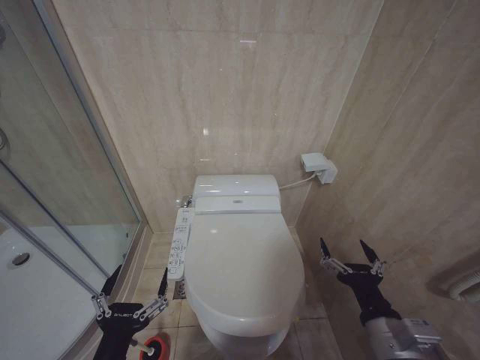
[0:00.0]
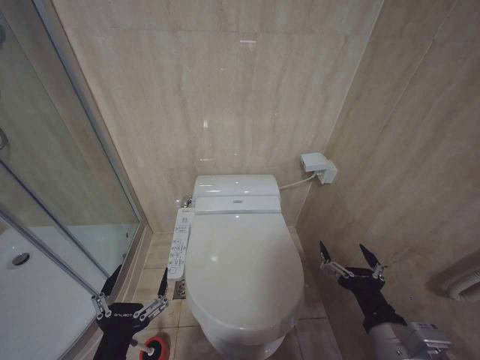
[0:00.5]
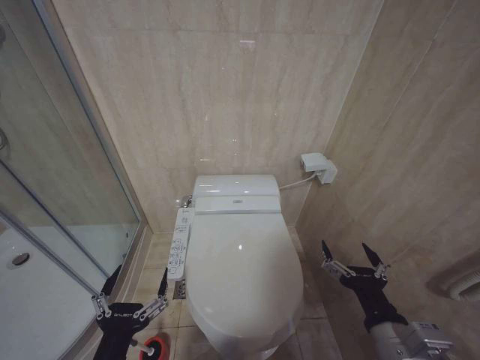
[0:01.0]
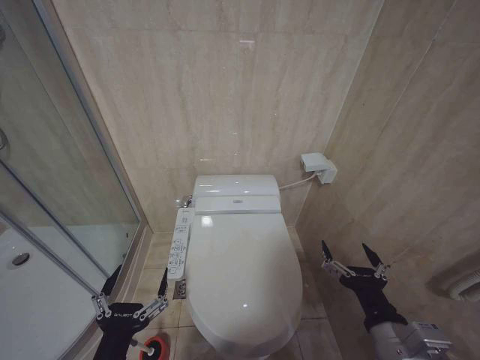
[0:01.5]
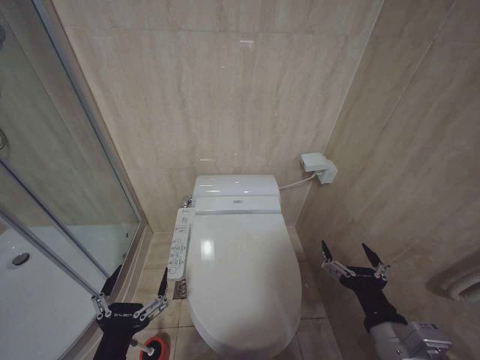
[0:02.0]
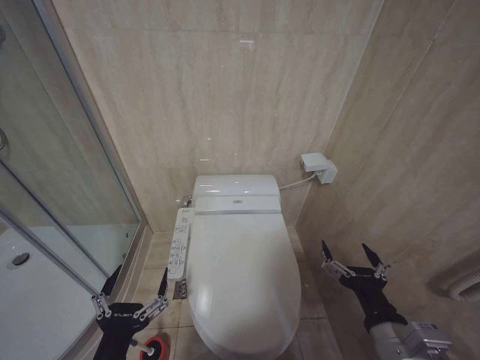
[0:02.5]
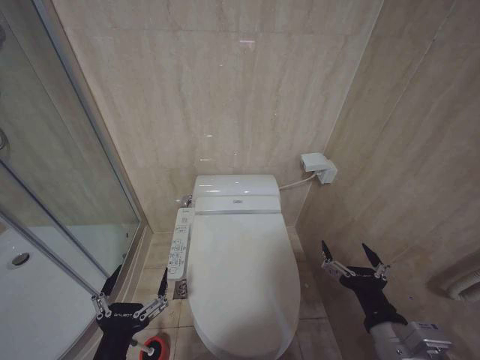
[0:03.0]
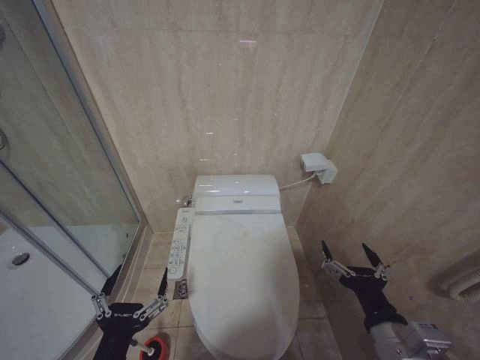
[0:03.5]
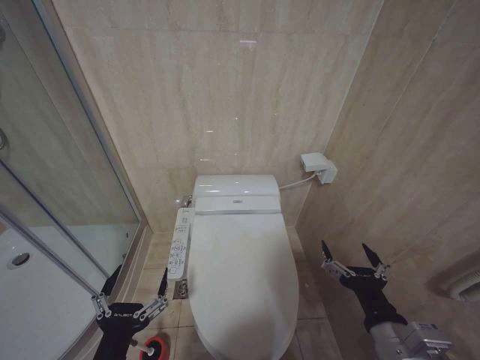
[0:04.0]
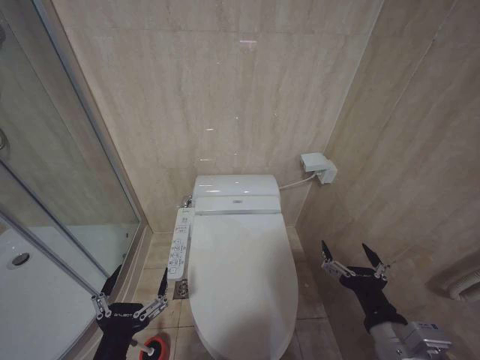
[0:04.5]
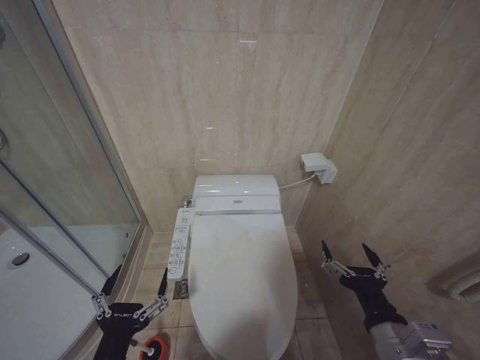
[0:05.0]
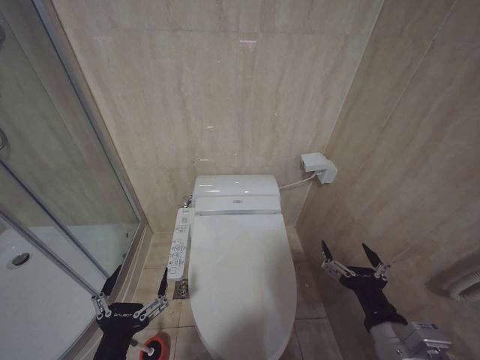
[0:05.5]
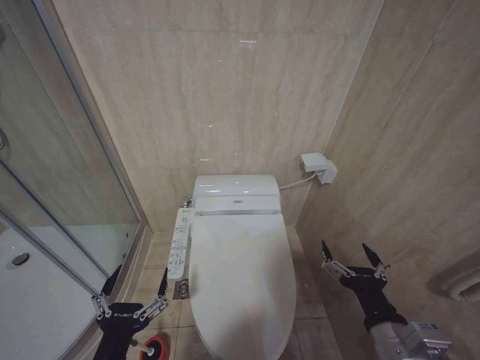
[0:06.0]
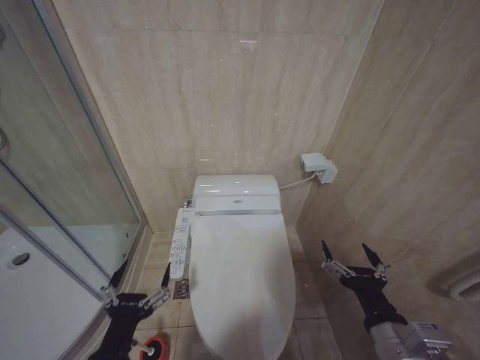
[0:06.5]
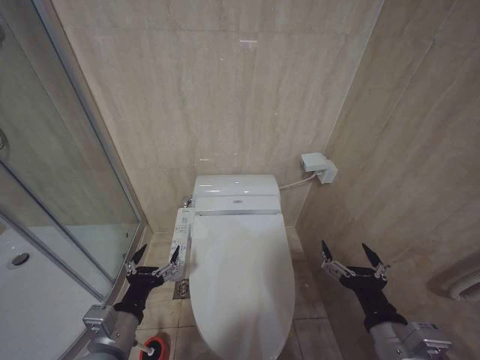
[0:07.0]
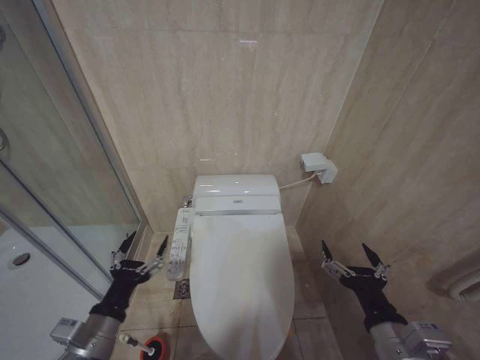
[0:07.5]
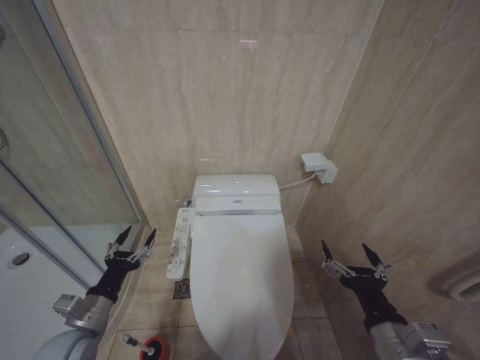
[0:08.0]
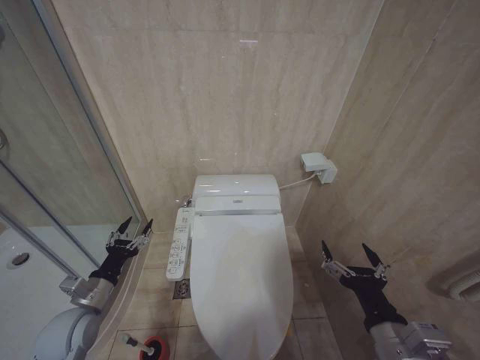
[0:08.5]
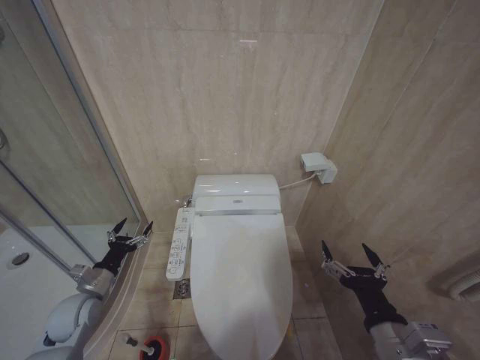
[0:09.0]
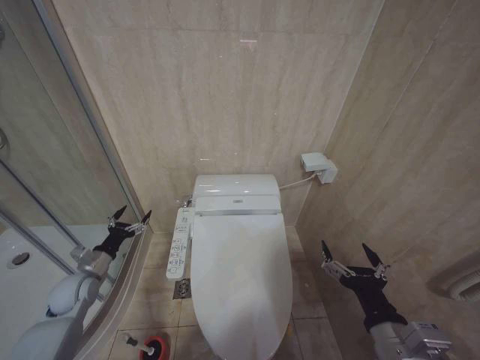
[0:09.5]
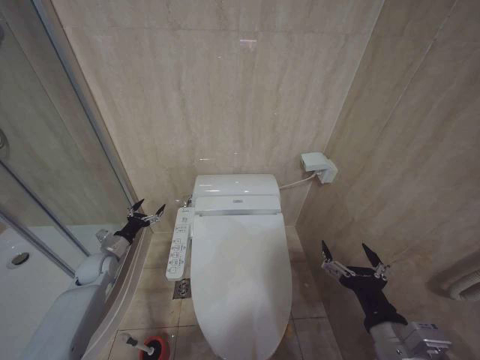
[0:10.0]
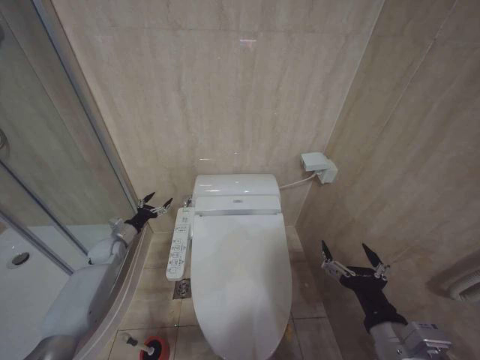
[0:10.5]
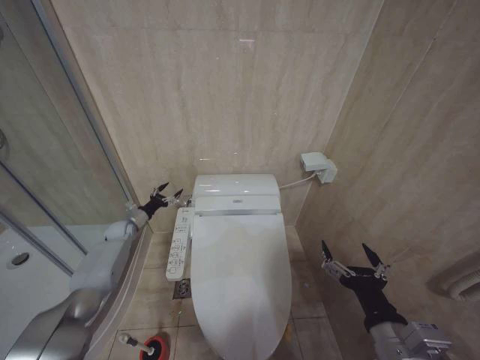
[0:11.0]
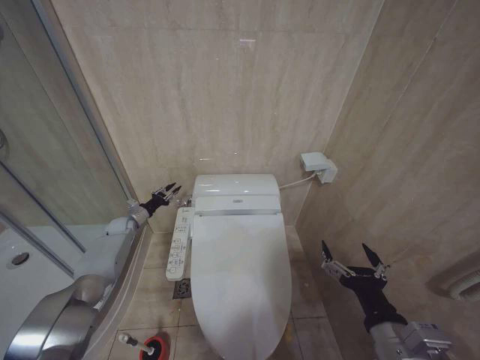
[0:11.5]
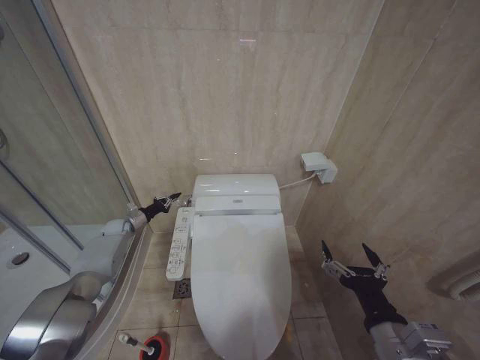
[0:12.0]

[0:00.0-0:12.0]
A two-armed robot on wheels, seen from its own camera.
Task of the whole recording: Open the toilet lid, clean the toilet bowl with a toilet brush, close the toilet lid, and flush.
0:00.0 to 0:02.0: There are only small adjustments of the grippers.
0:02.0 to 0:06.0: Both grippers stay about where they are.
0:06.0 to 0:08.0: The left gripper travels forward and to the left by approximately 20 cm.
0:08.0 to 0:10.0: The left gripper is displaced forward by some 20 cm.
0:10.0 to 0:12.0: The left gripper is displaced forward by roughly 15 cm, and closes up.

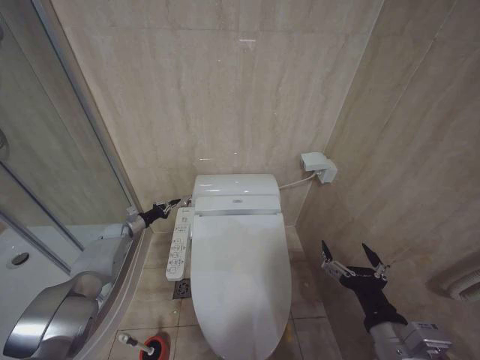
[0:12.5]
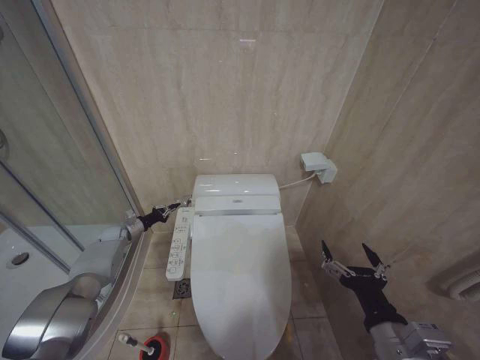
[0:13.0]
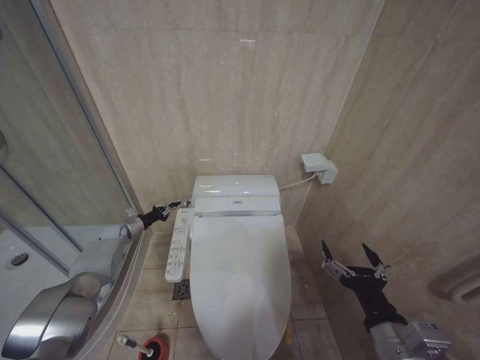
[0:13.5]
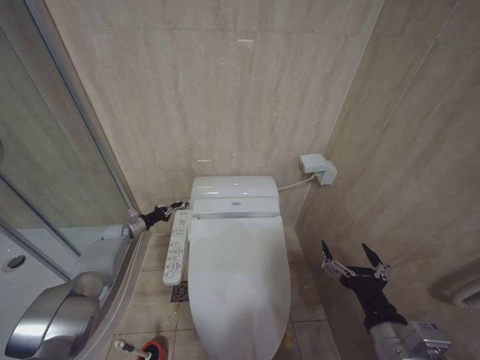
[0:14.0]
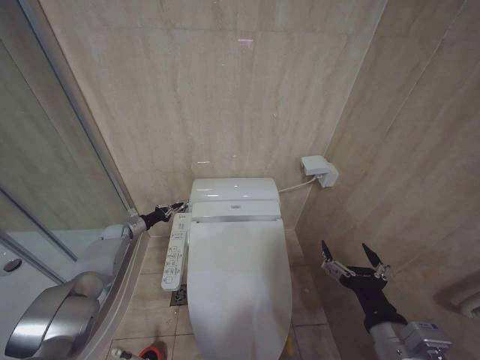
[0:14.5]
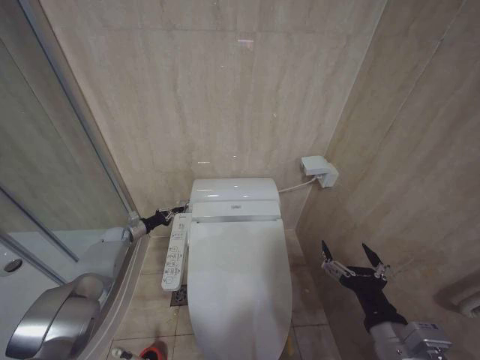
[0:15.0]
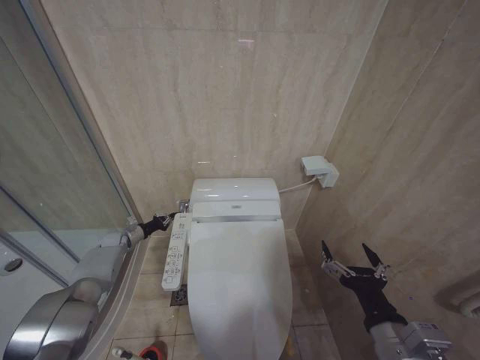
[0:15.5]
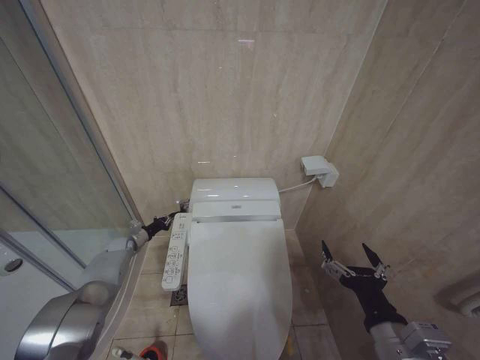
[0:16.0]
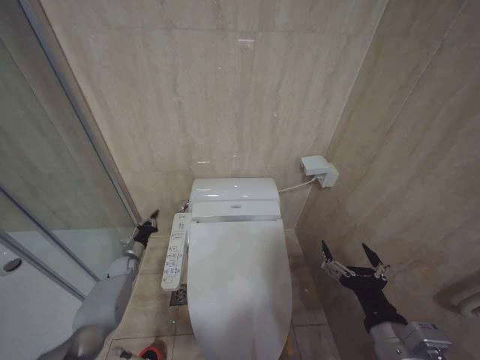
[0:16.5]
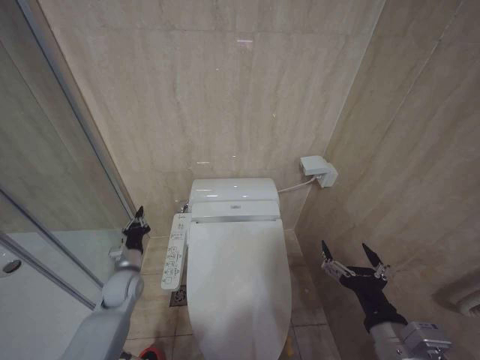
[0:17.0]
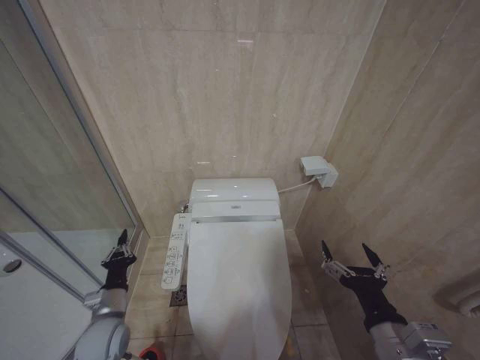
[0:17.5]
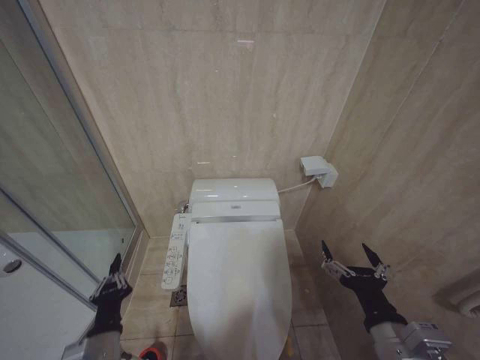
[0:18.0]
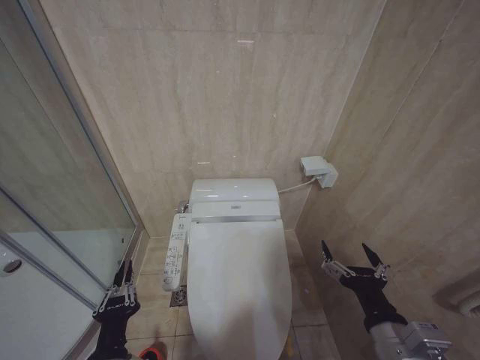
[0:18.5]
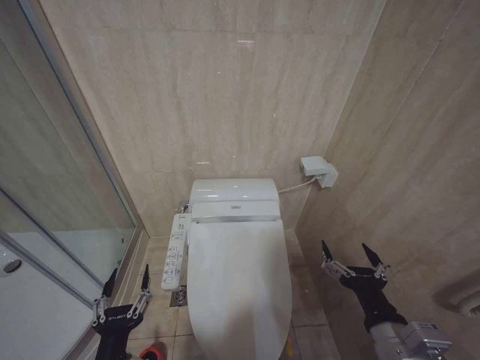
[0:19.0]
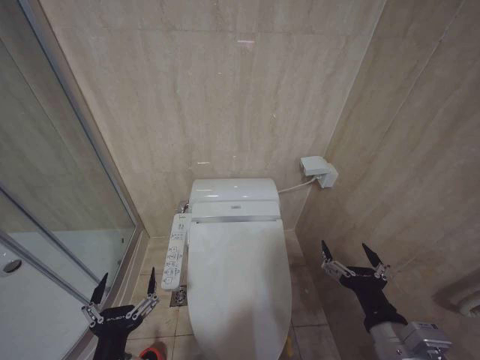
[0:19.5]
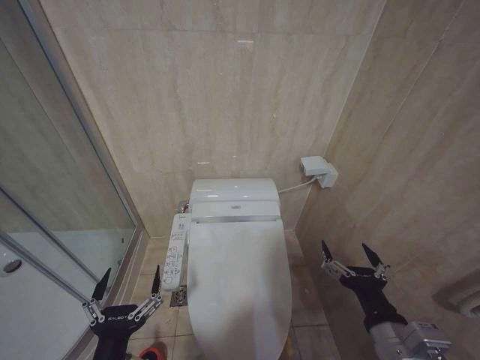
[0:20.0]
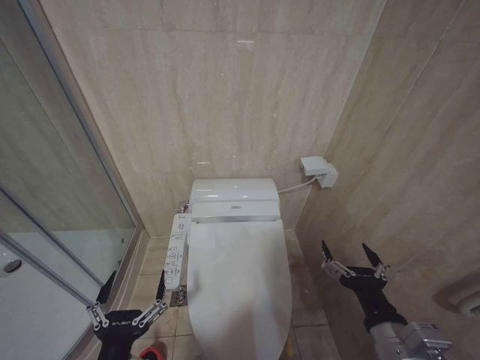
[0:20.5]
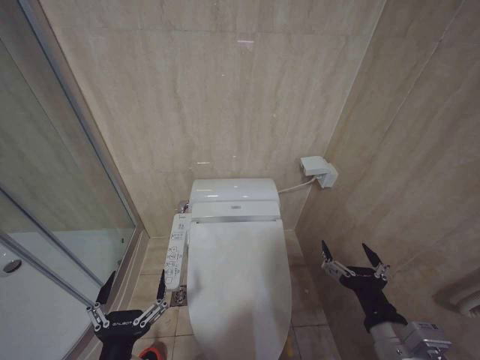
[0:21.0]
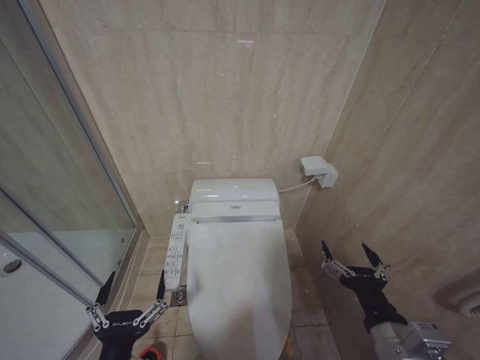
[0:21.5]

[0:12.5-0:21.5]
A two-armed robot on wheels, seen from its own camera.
Task of the whole recording: Open the toilet lid, clean the toilet bowl with a toilet brush, close the toilet lid, and flush.
0:12.5 to 0:14.5: The grippers stay close to where they were, moving slightly.
0:14.5 to 0:17.0: The left gripper shifts approximately 20 cm backward and to the right.
0:17.0 to 0:19.5: The left gripper goes roughly 30 cm backward, and opens.
0:19.5 to 0:21.5: The grippers make only small movements.

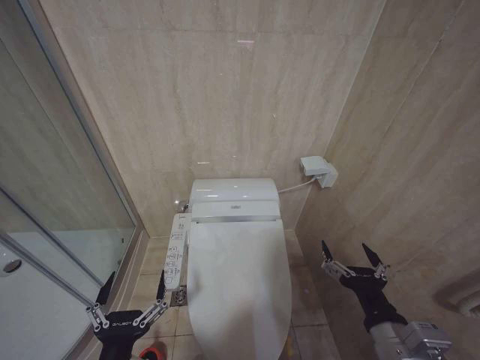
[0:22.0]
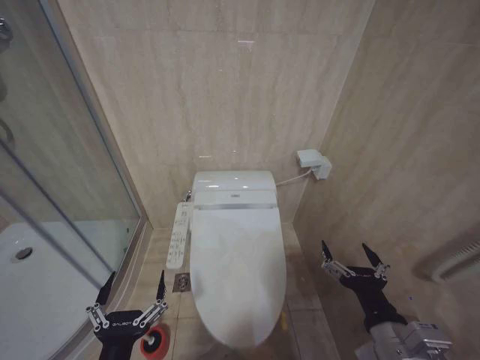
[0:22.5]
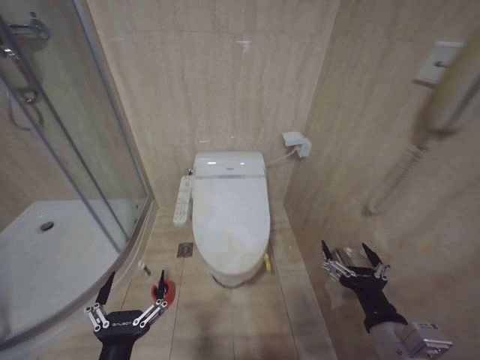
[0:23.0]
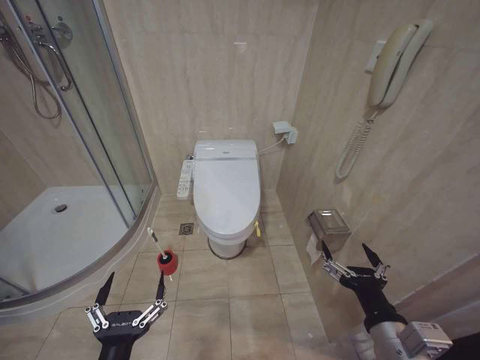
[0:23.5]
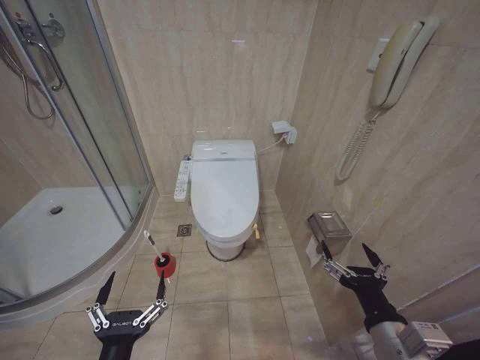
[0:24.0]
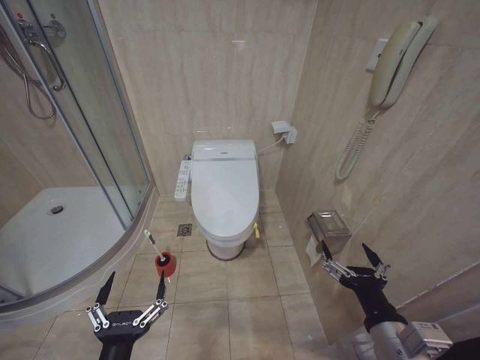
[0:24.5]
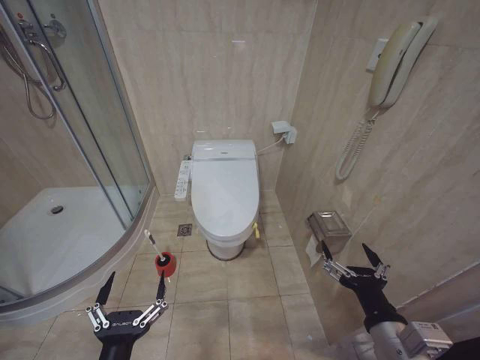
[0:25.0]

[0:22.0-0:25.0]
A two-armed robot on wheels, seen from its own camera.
Task of the whole recording: Open the toilet lid, clean the toilet bowl with a toilet brush, close the toilet lid, and flush.
0:23.5 to 0:25.0: Neither gripper changes place.

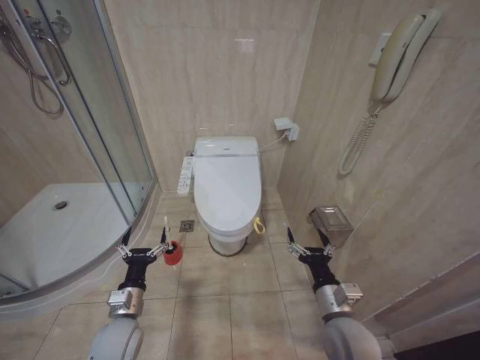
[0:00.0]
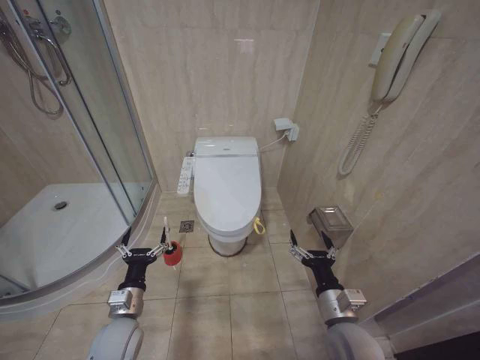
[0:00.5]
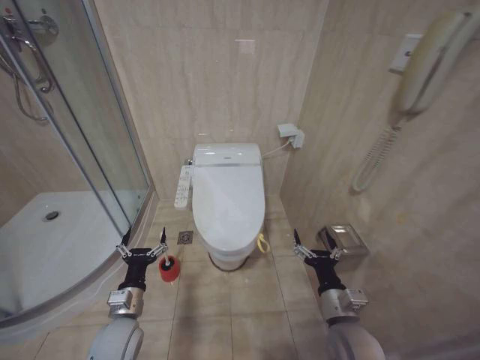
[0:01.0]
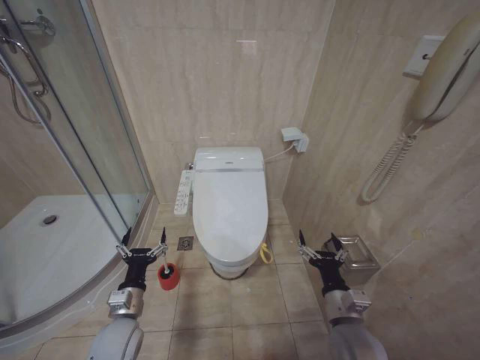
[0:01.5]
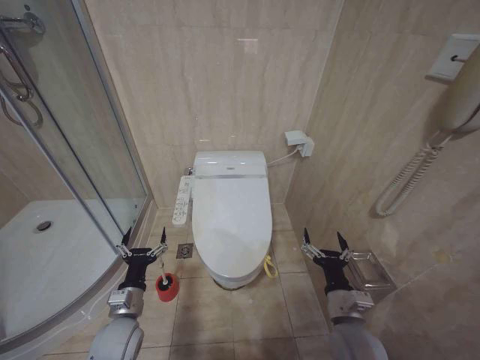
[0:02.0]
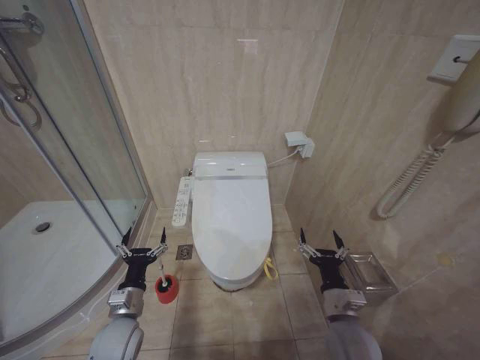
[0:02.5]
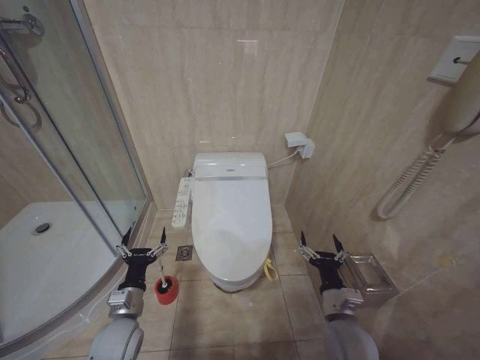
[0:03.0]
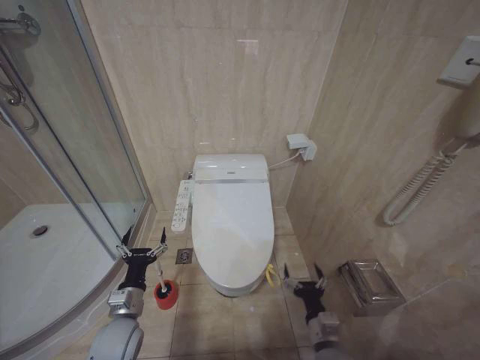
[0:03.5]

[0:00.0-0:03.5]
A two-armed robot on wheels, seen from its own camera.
Task of the whole recording: Open the toilet lid, clean the toilet bowl with a toilet brush, close the toilet lid, and flush.
0:02.0 to 0:03.5: The right gripper moves downward, roughly 10 cm.
